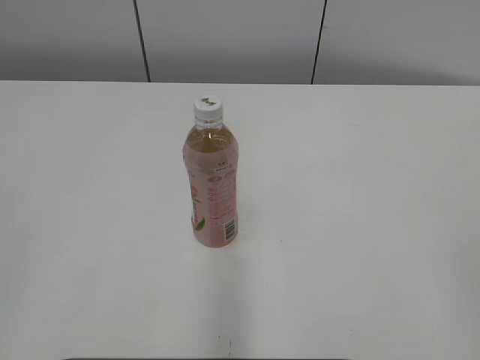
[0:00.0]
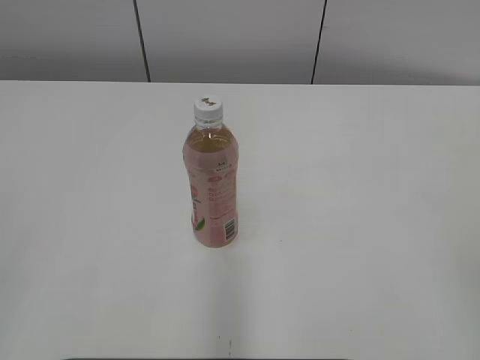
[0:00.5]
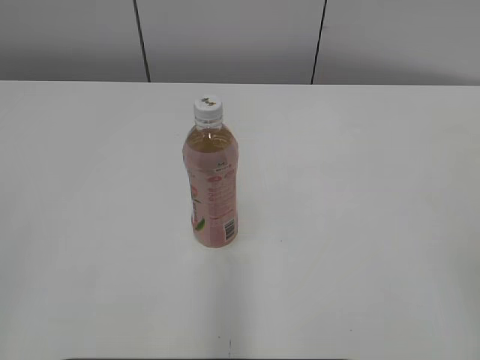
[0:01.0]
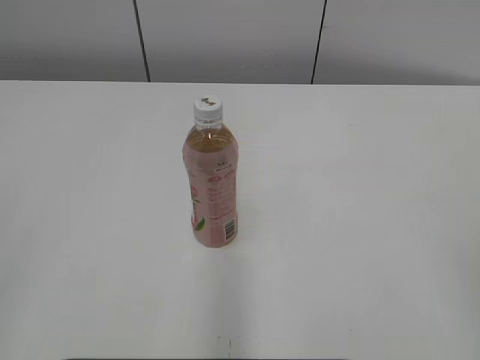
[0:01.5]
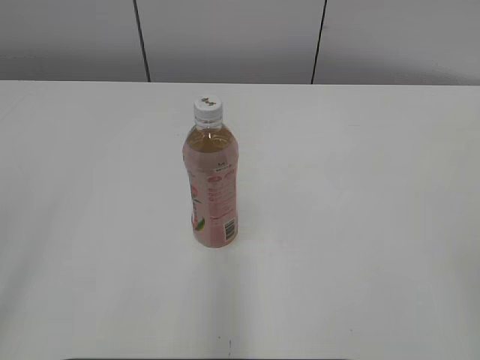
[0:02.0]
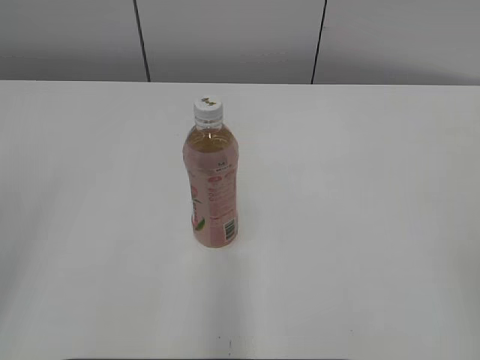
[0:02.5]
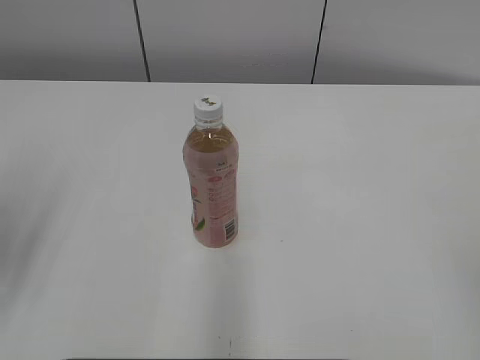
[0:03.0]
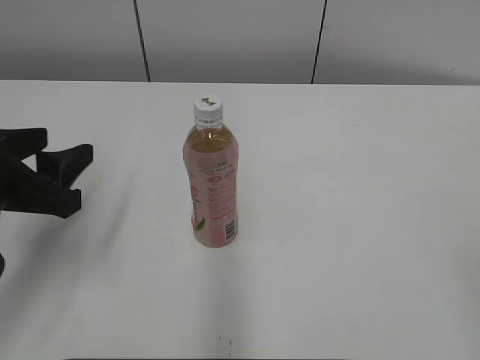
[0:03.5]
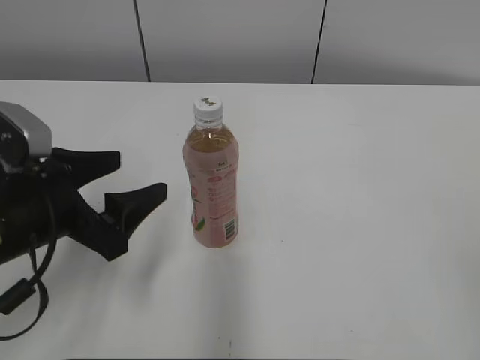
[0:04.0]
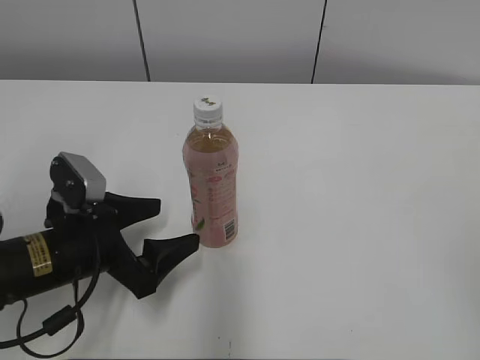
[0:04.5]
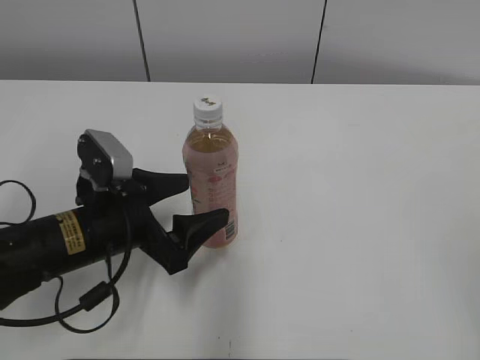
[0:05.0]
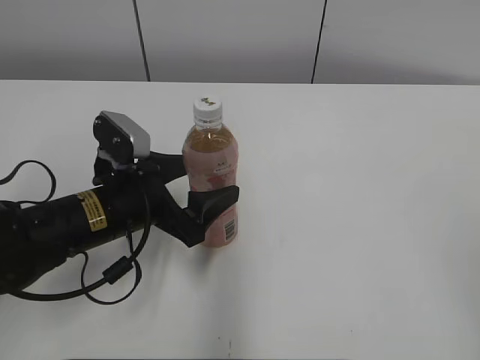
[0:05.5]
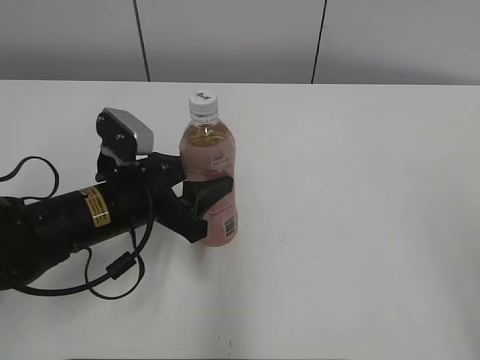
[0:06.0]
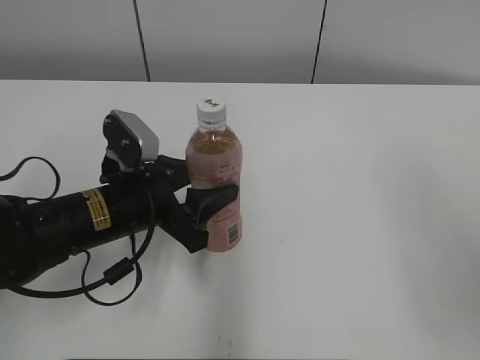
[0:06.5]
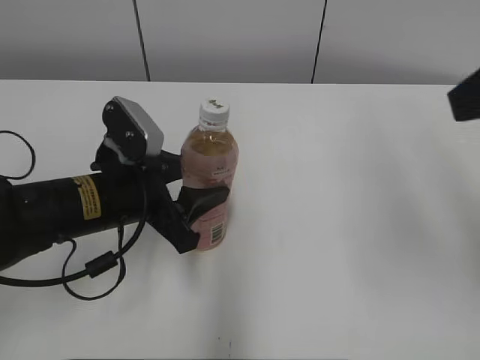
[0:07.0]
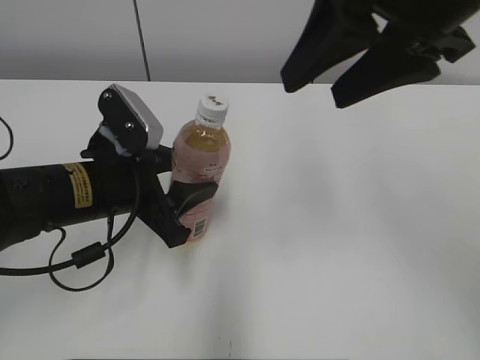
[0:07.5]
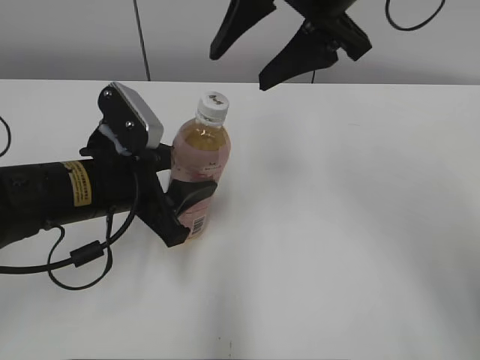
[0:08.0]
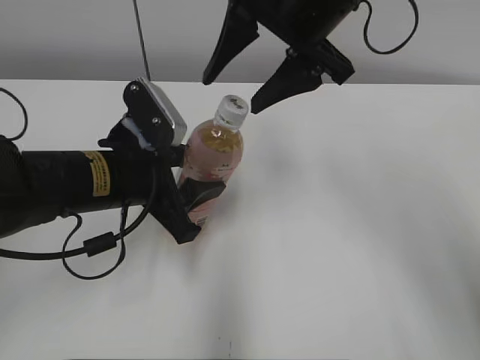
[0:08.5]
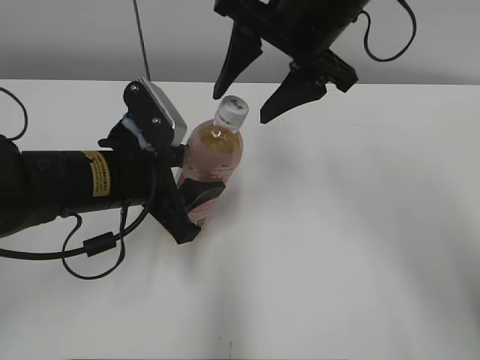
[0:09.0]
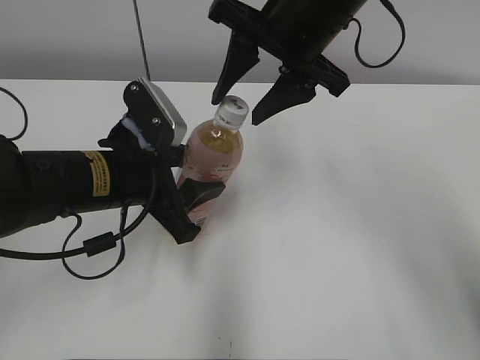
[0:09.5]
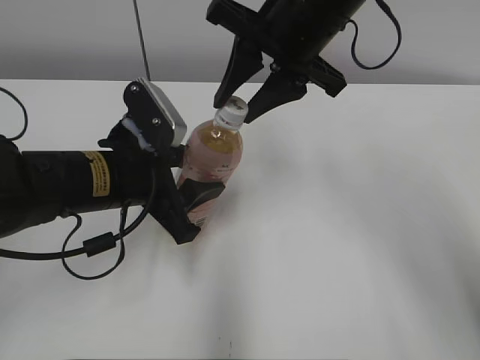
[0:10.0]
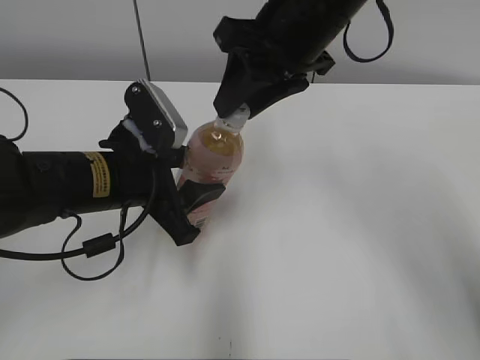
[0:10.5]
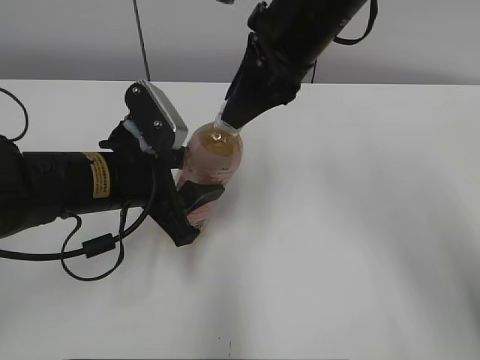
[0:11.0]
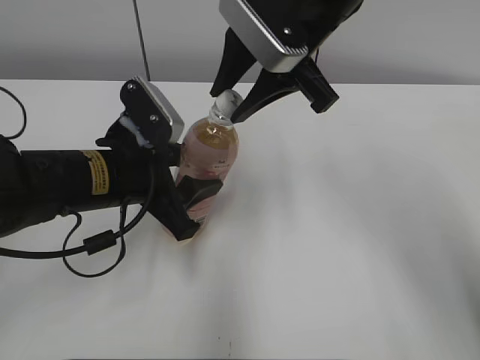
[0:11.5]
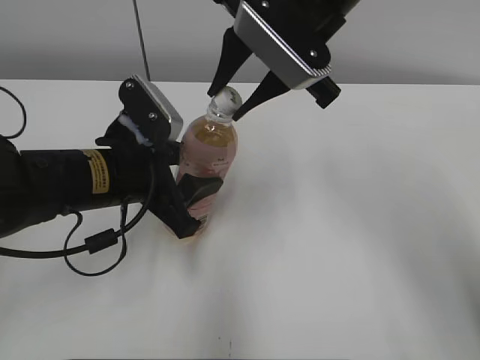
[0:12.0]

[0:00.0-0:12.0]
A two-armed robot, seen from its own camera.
Step, 0:00.0 to 0:06.5: Grab the Peach Oolong Tea with the left hand.
Step, 0:10.0 to 0:12.0: Secure the Peach Oolong Tea with the left hand.
0:02.0 to 0:04.0: The left gripper goes some 30 cm forward, downward and to the right, and opens its fingers.
0:04.0 to 0:06.0: The left gripper is displaced to the right and forward by some 10 cm, and closes.
0:06.0 to 0:08.0: The right gripper travels forward and to the left by some 35 cm.
0:08.0 to 0:10.0: The right gripper is displaced downward by some 5 cm, and closes.

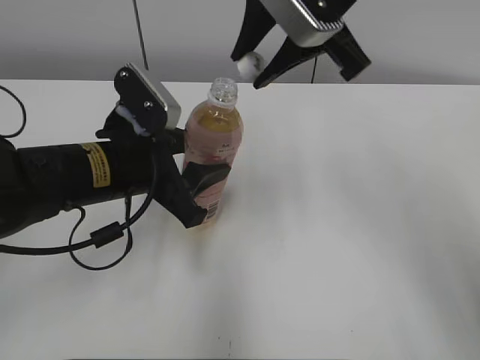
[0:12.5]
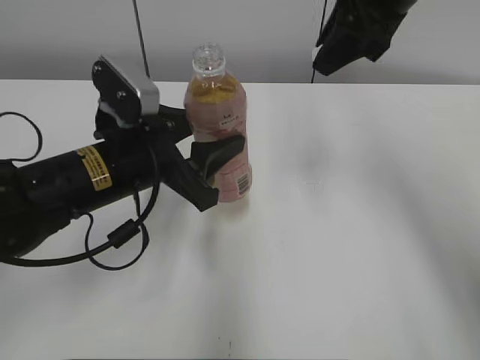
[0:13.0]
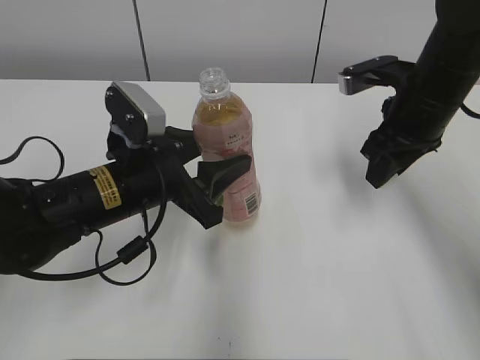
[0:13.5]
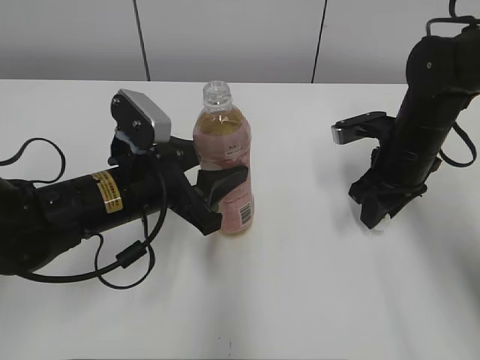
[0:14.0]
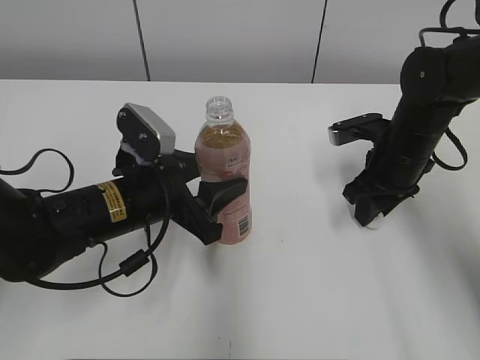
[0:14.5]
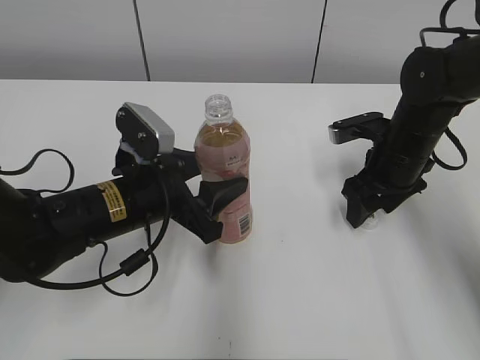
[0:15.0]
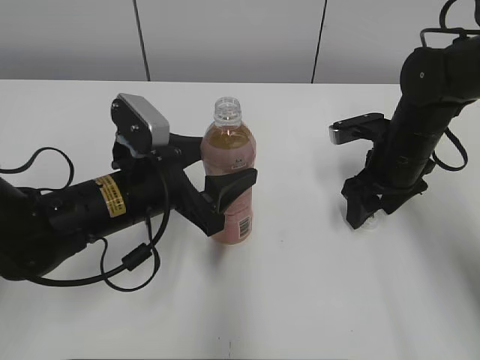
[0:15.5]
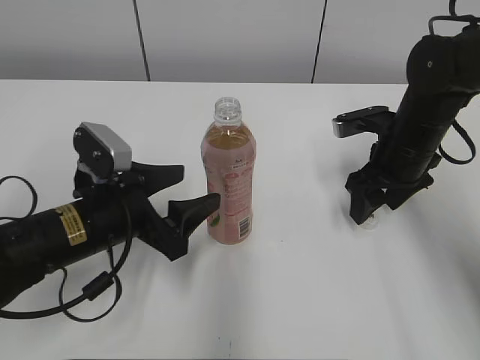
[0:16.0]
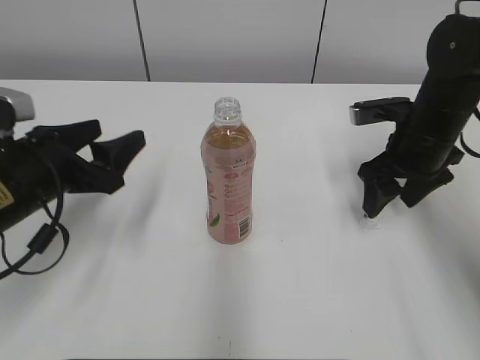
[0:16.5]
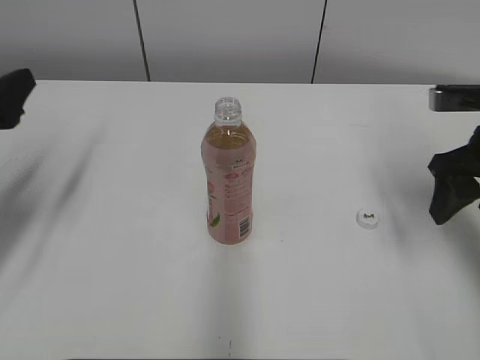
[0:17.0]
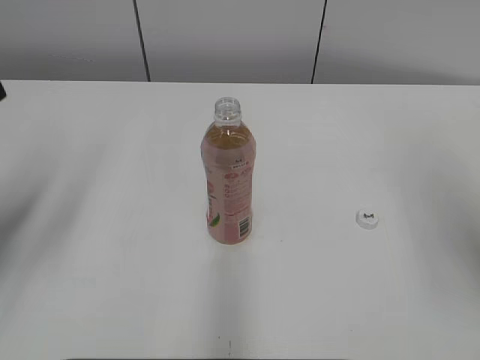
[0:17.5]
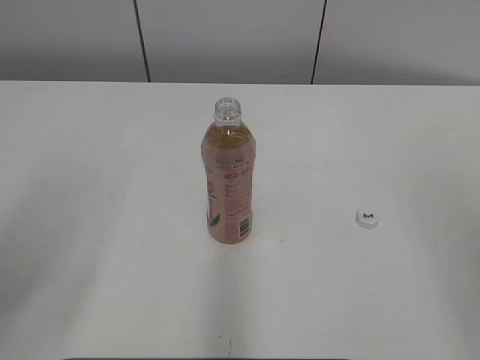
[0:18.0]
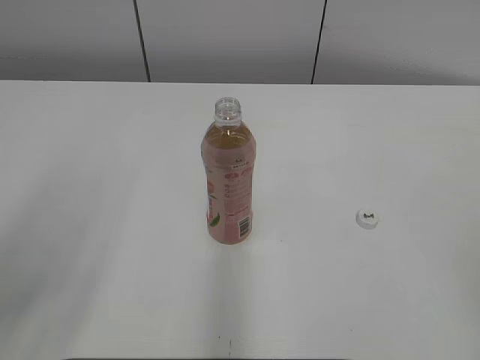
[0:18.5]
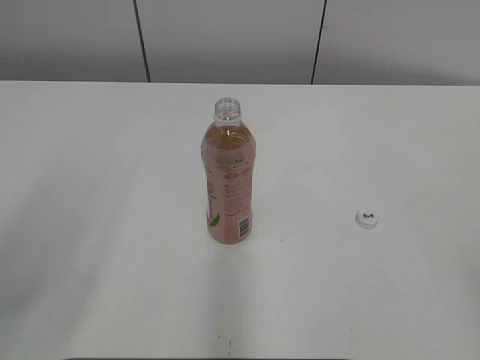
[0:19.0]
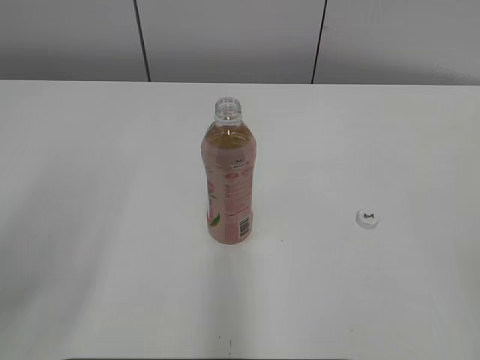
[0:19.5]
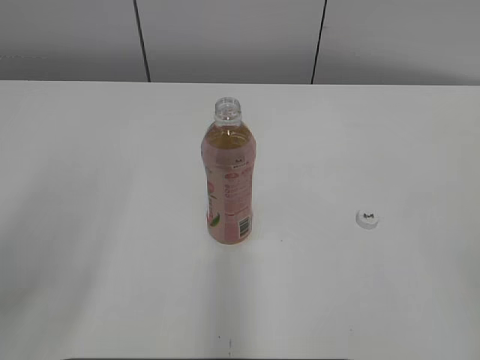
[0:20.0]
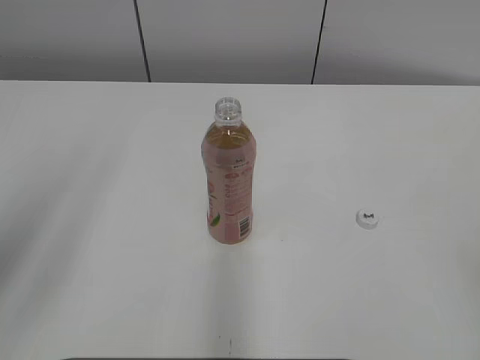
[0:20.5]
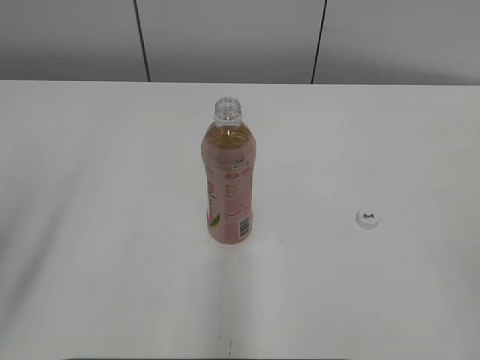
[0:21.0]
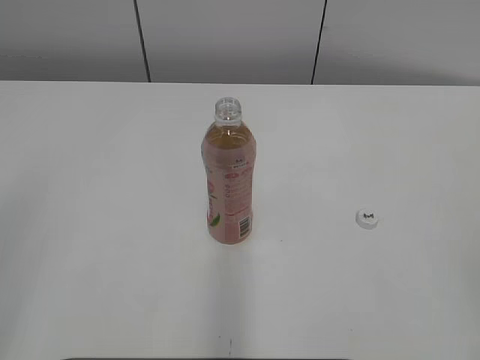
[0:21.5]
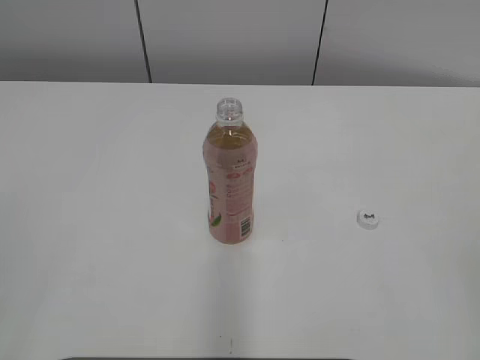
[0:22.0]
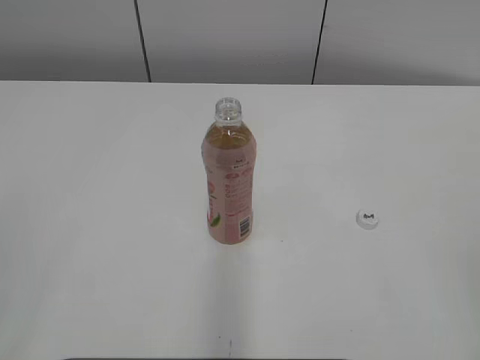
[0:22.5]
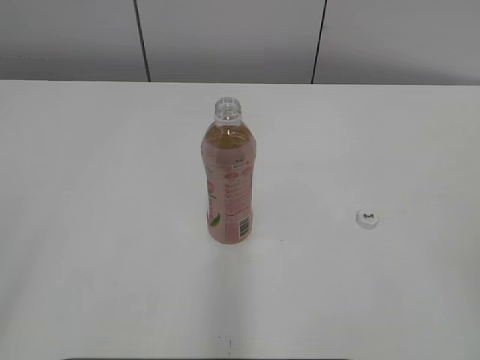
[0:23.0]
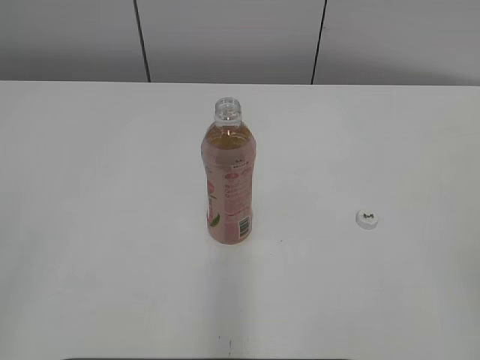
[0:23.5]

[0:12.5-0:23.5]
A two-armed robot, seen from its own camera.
Step, 0:12.5 to 0:14.5: Place the bottle cap on the right.
0:12.5 to 0:14.5: The right gripper is displaced downward and to the right by about 25 cm.
0:14.5 to 0:16.0: The left gripper opens its fingers. The right gripper opens.
0:16.0 to 0:18.0: The left gripper goes roughly 25 cm upward, backward and to the left; the right gripper heads backward and upward, covering approximately 35 cm.

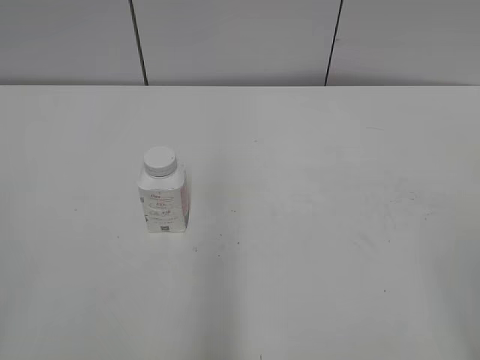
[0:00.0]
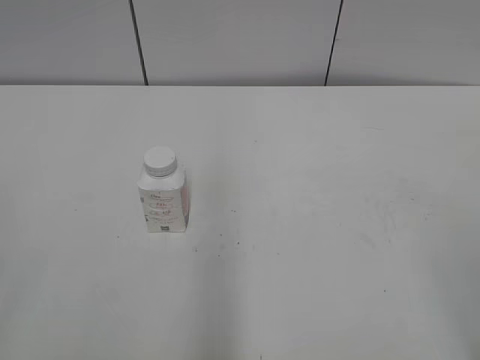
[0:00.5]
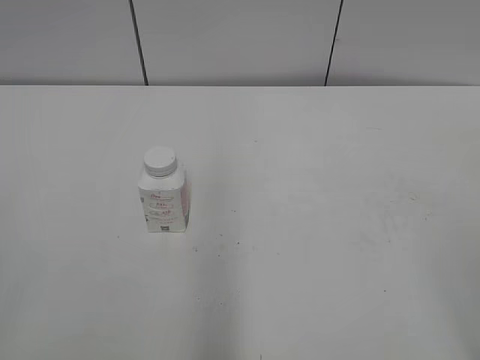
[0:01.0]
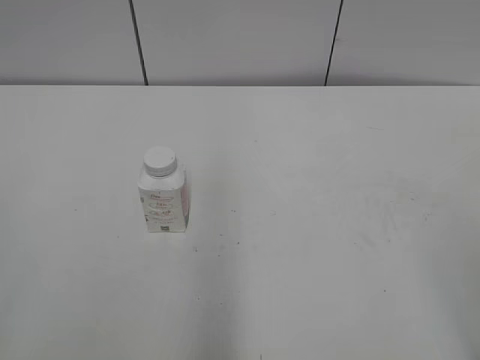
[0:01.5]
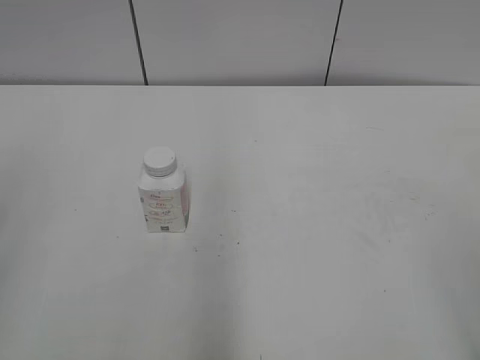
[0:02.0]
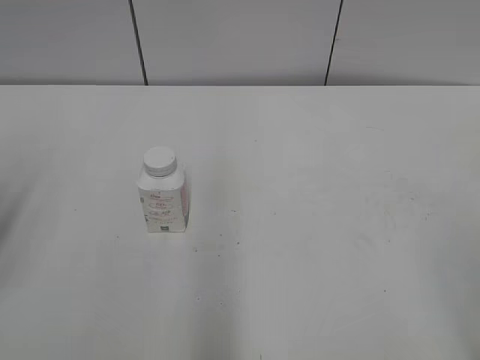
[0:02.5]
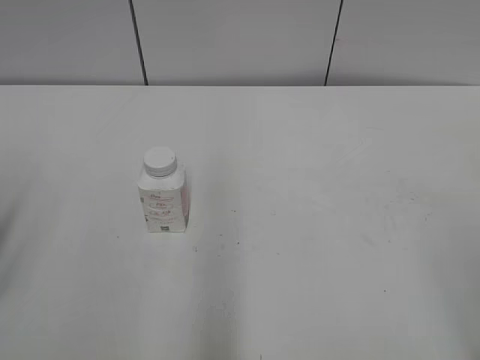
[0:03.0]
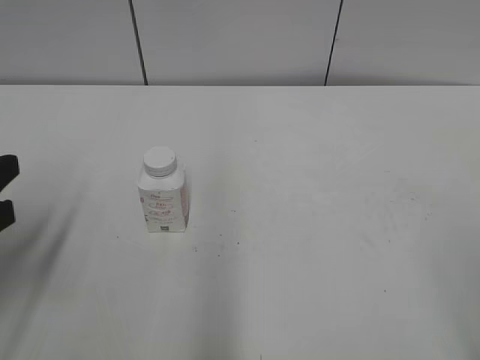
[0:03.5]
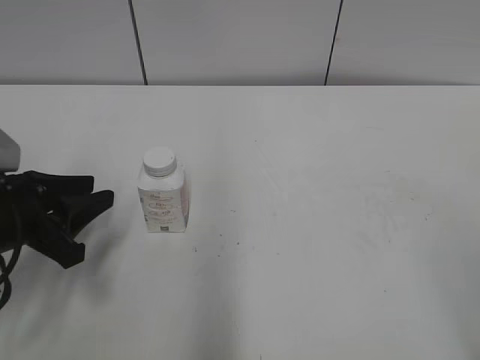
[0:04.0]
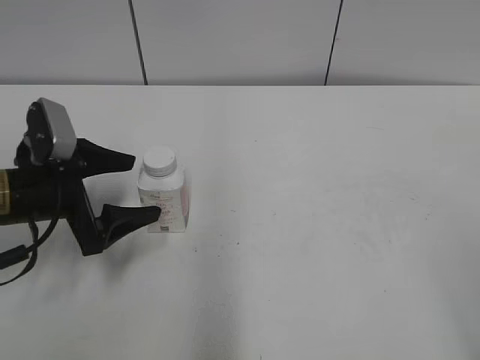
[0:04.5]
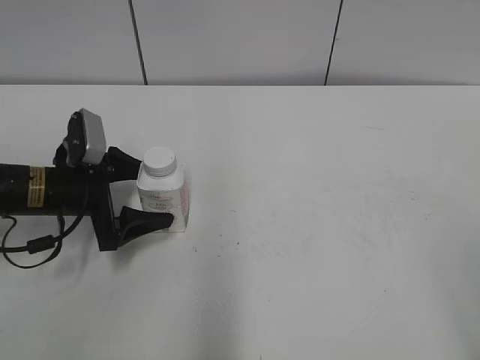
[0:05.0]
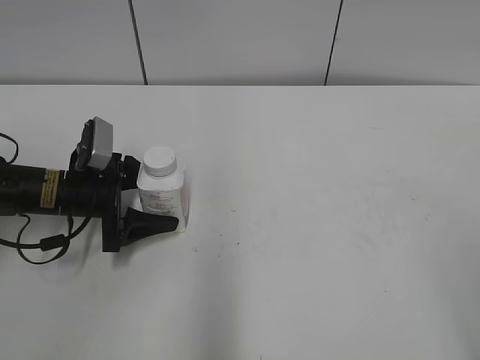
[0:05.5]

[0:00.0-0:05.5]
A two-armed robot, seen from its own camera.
0:02.0 to 0:03.5: The left gripper moves downward and forward, about 15 cm.
0:03.5 to 0:05.5: The left gripper is displaced forward and downward by some 20 cm, and opens up.
